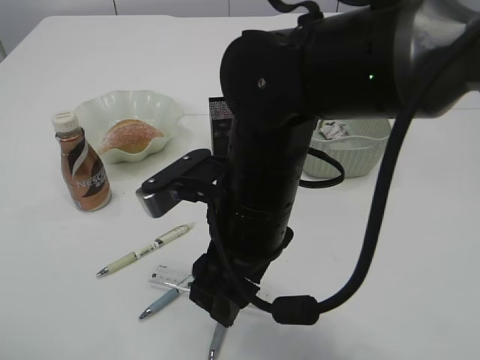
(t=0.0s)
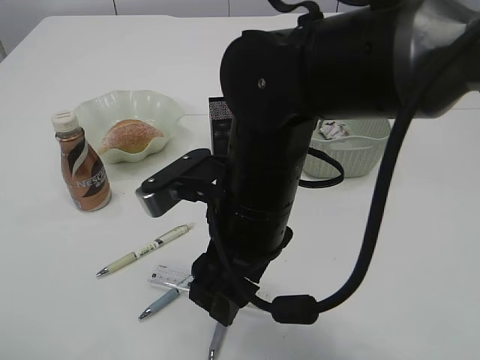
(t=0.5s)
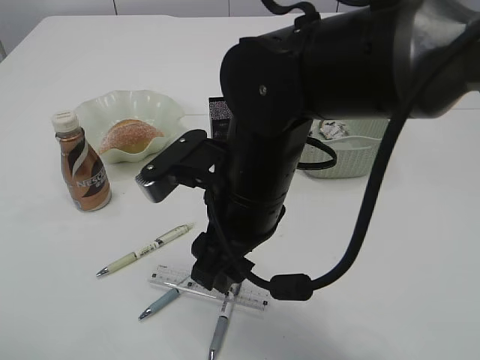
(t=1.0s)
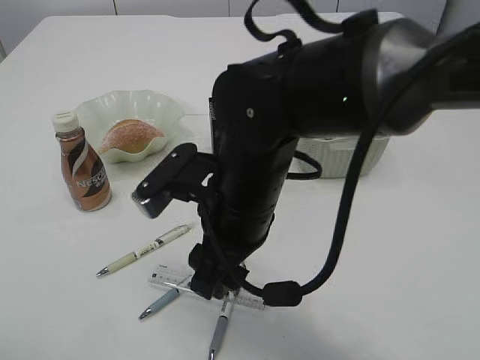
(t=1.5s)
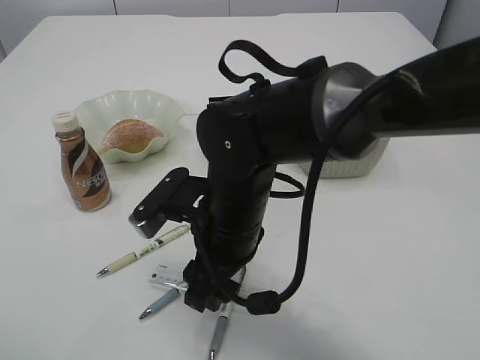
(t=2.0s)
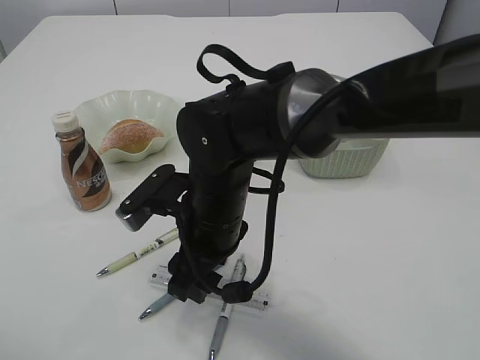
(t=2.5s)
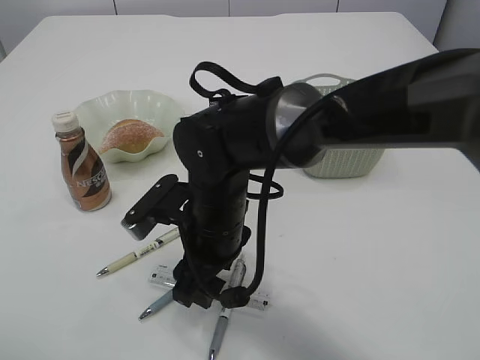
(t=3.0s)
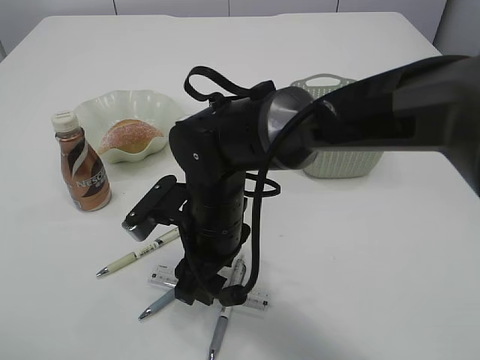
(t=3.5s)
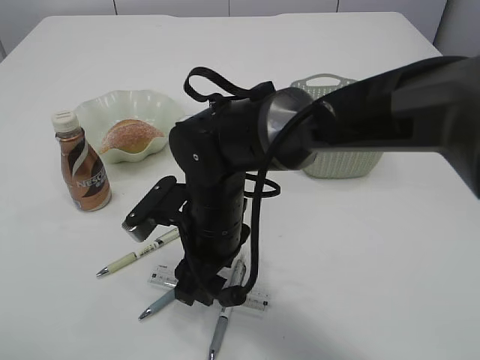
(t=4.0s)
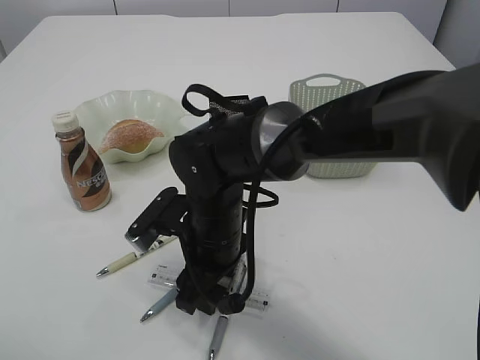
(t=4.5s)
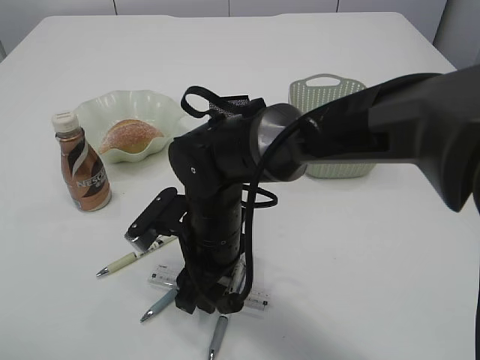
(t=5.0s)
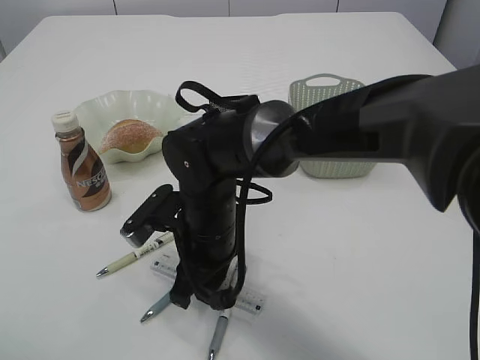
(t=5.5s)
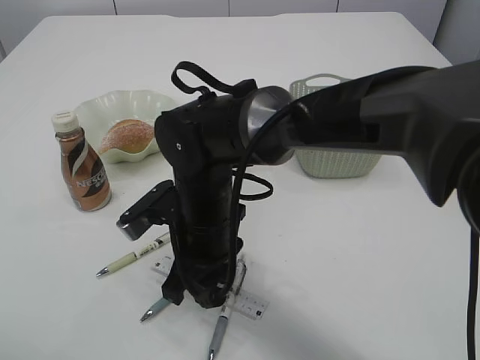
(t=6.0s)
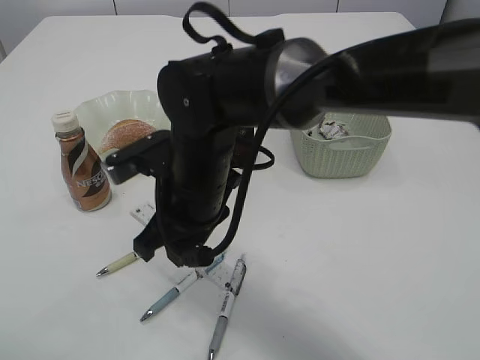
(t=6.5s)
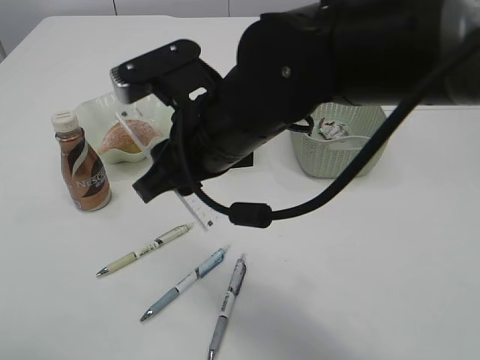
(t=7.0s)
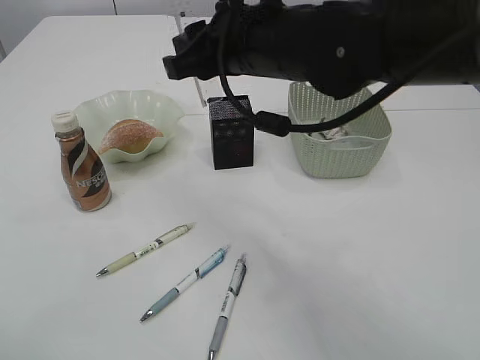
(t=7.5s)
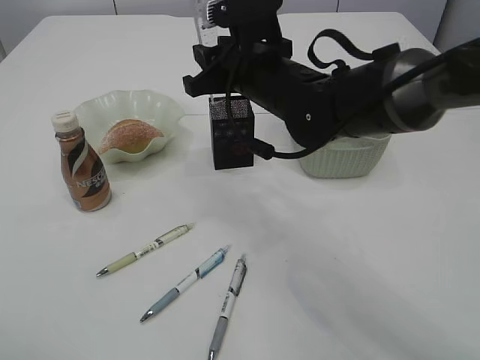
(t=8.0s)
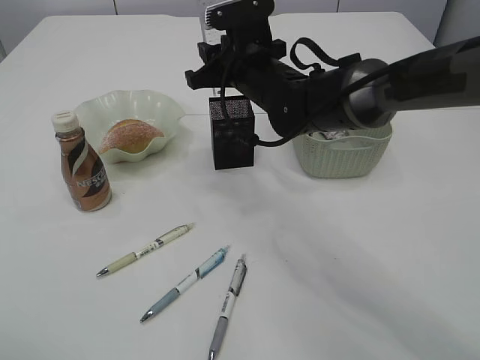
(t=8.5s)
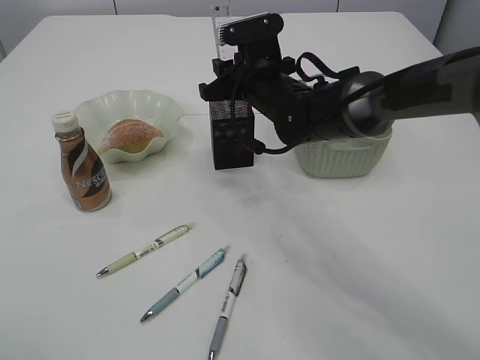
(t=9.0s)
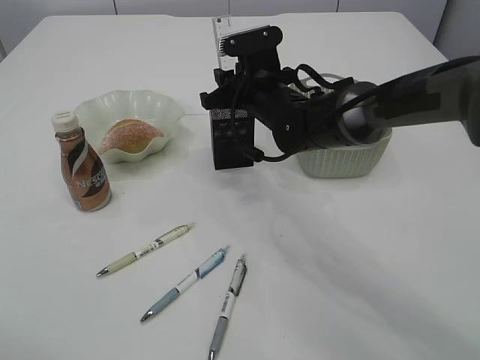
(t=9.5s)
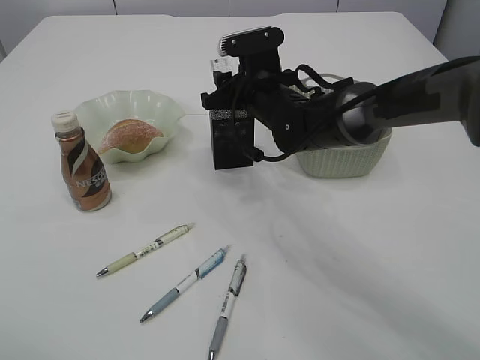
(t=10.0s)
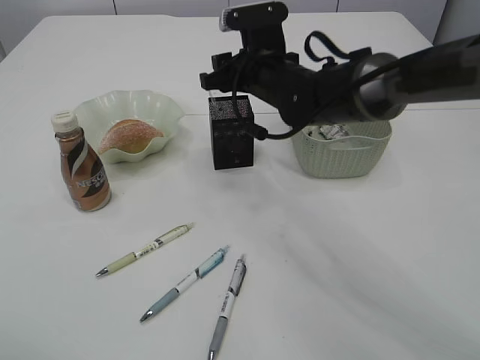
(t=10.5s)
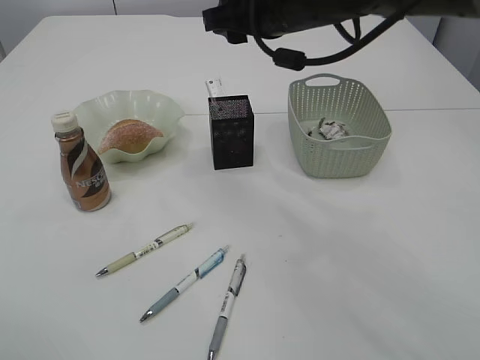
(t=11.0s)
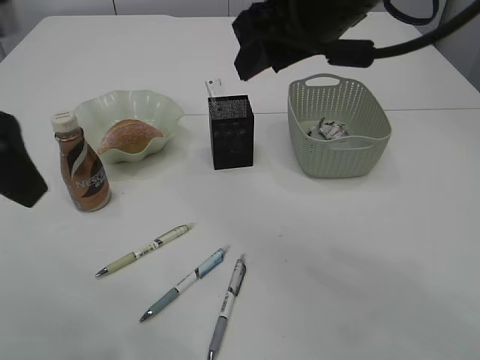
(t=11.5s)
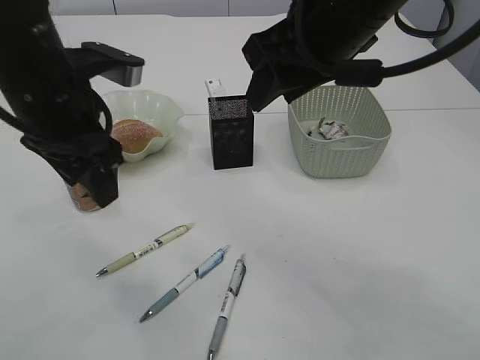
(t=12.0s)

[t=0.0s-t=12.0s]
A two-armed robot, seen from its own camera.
Step, t=0.0s to t=6.0s: pick up the ruler.
Step, t=6.5s to t=10.5s: Place the ruler into the pen holder.
t=0.0s to t=2.0s: The right gripper travels downward by some 5 cm.
t=2.0s to t=6.0s: There are only small adjustments of the grippers.
t=6.0s to t=8.0s: The right gripper is displaced upward, forward and to the right by approximately 15 cm.
t=8.0s to t=10.0s: The right gripper shifts about 10 cm forward and downward.
t=10.0s to t=12.0s: The left gripper shifts about 20 cm forward and to the right. The right gripper goes about 25 cm upward and backward.

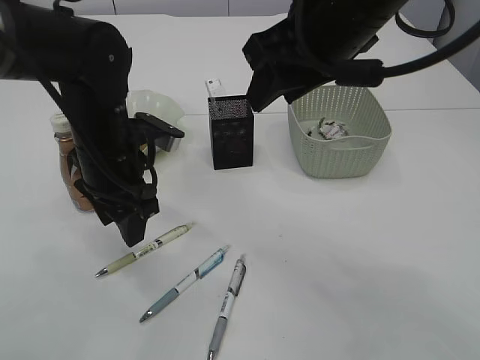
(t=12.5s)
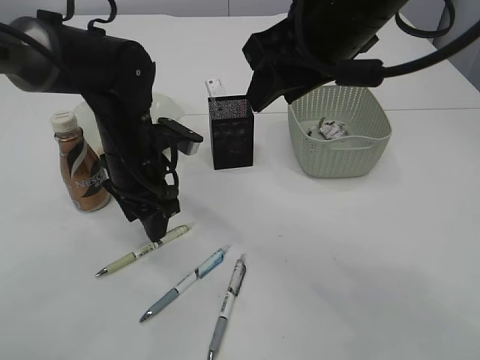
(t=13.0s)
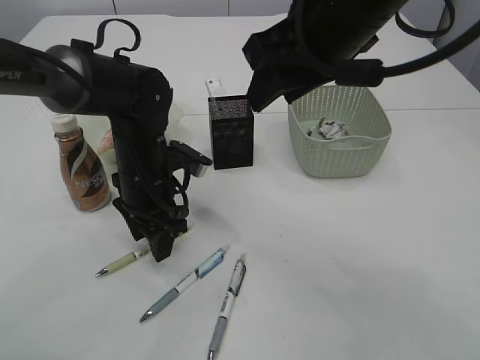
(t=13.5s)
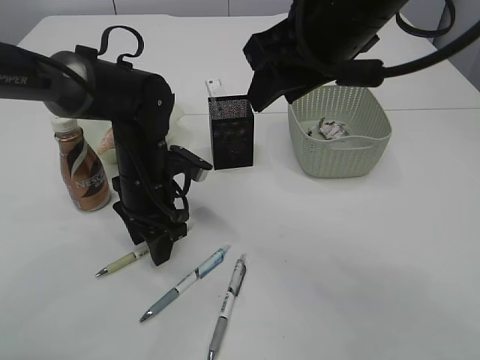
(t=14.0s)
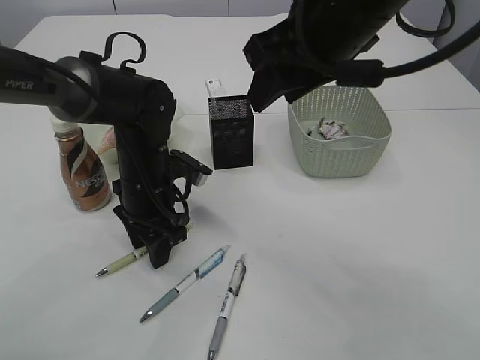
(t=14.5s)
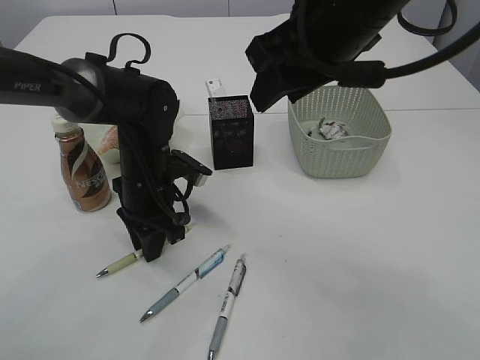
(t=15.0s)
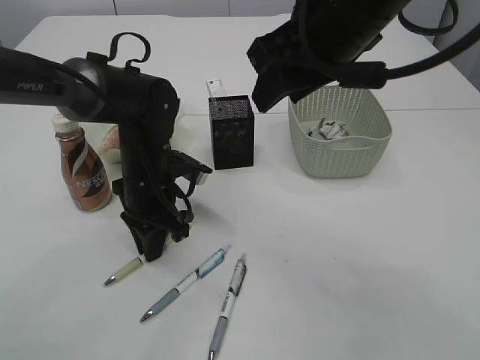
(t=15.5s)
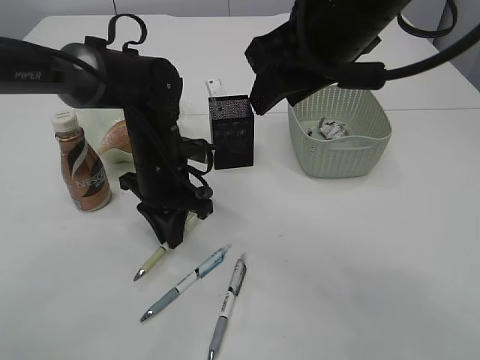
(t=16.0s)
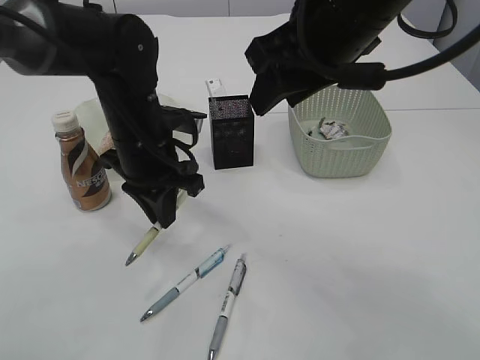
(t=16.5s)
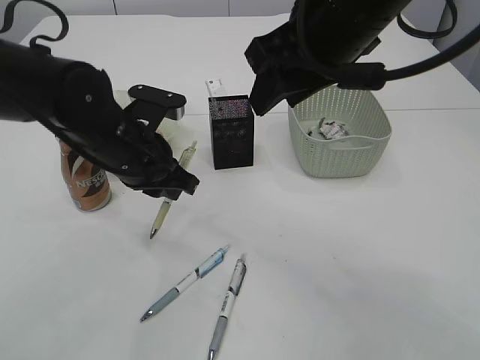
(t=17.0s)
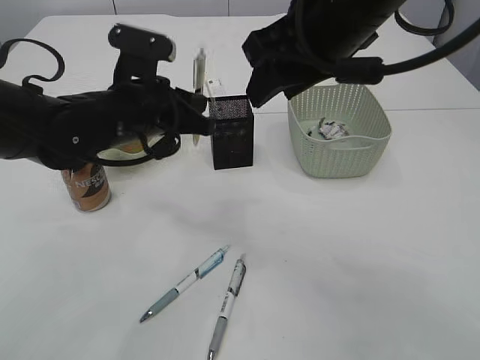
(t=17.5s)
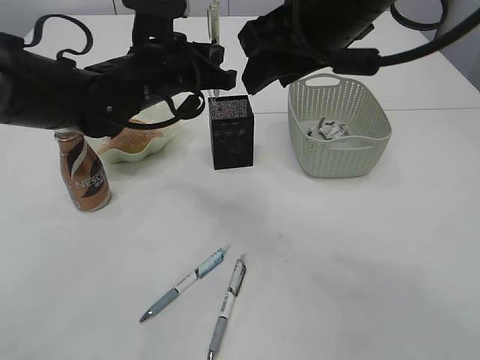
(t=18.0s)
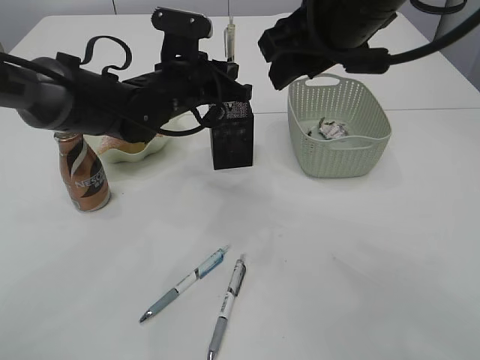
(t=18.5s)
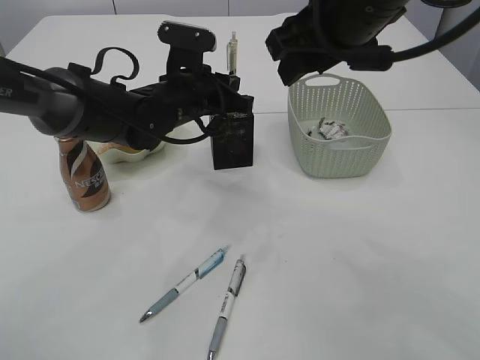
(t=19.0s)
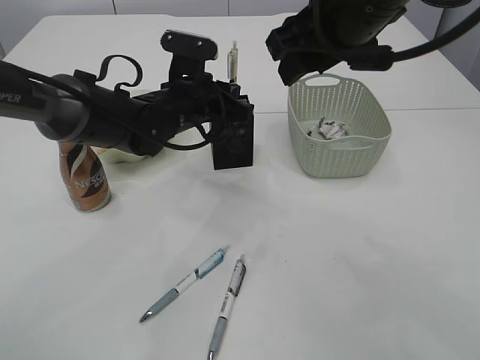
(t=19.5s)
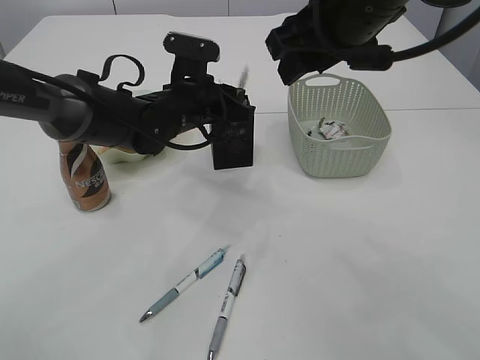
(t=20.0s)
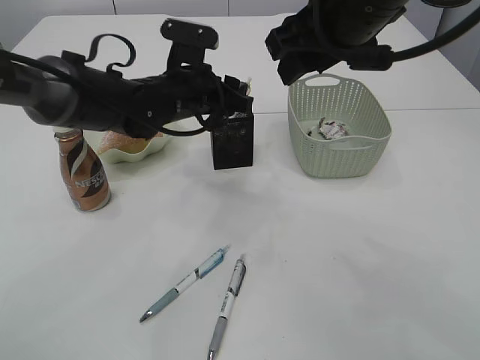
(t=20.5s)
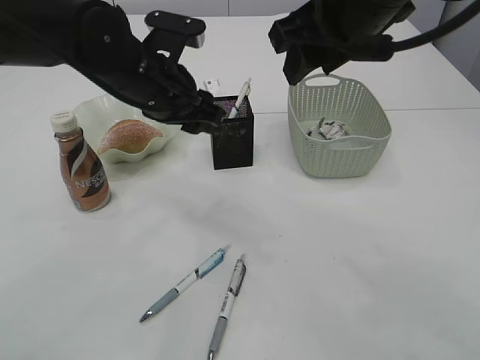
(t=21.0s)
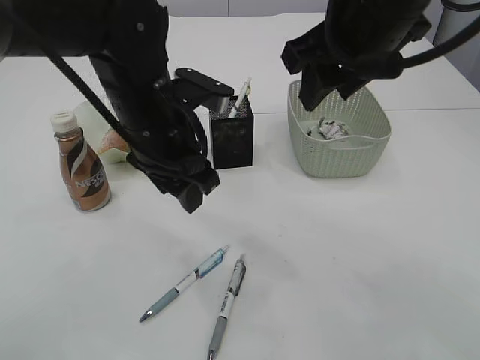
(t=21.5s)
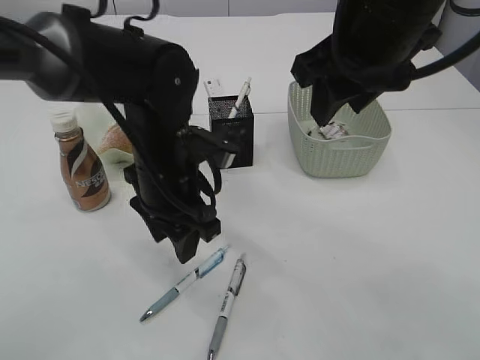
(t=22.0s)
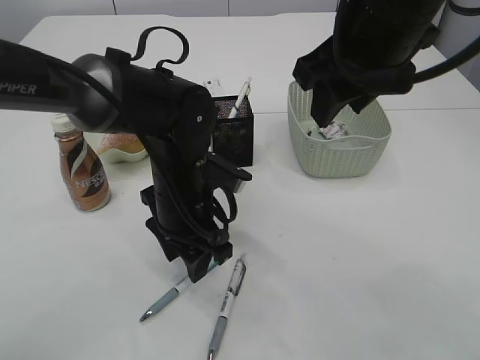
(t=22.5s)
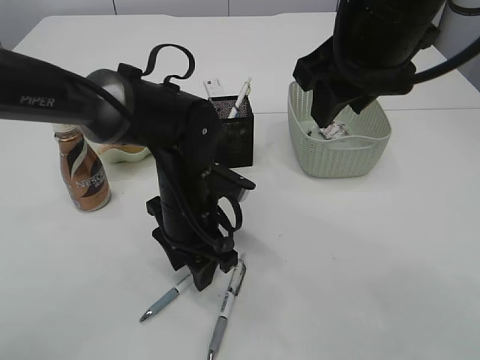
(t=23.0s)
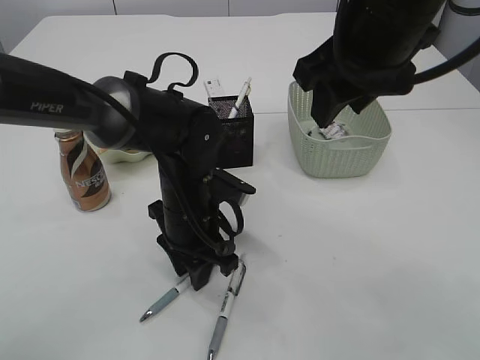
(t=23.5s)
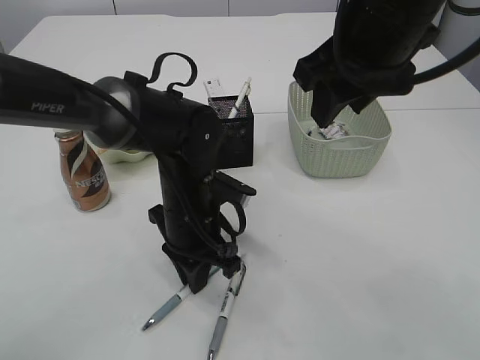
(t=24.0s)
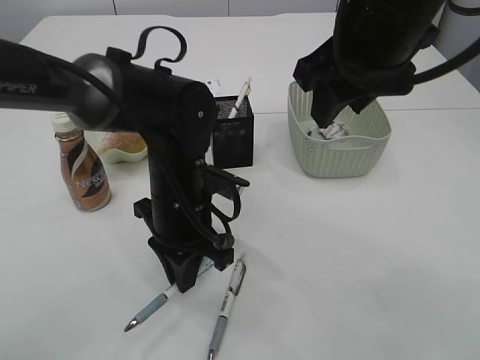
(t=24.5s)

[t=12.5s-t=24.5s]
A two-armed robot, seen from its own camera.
Step, t=12.5s to t=16.5s: Pick up the pen with left arm.
Step, t=17.0s to t=21.0s: Place the pen into the pen holder.
t=12.5s to t=14.5s: The left gripper moves downward, some 5 cm.
t=14.5s to t=16.5s: The left gripper travels upward by roughly 5 cm, and closes its fingers.
t=16.5s to t=18.5s: The left gripper goes approximately 5 cm forward.
t=18.5s to t=20.5s: The left gripper opens.
t=20.5s to t=22.5s: The left gripper goes approximately 10 cm backward.
t=22.5s to t=24.5s: The left gripper closes its fingers.

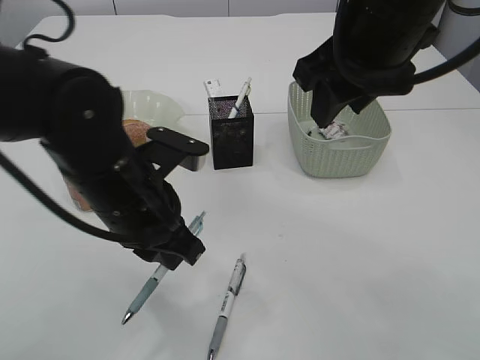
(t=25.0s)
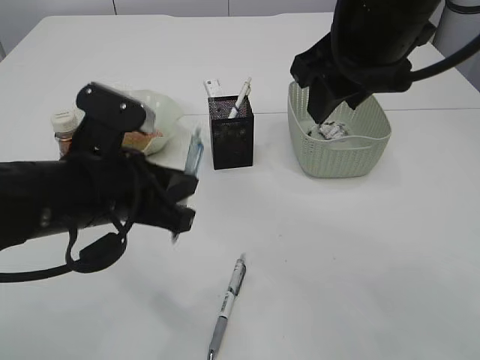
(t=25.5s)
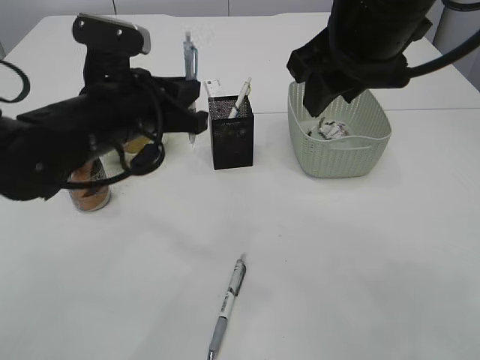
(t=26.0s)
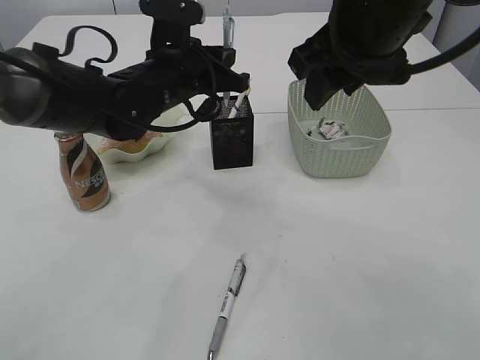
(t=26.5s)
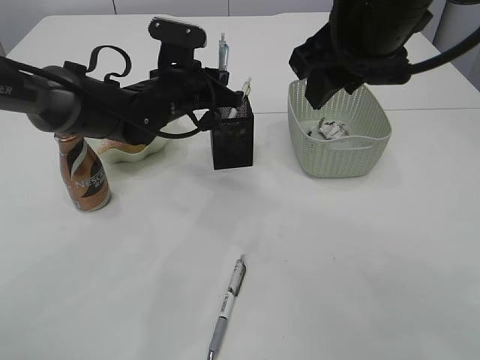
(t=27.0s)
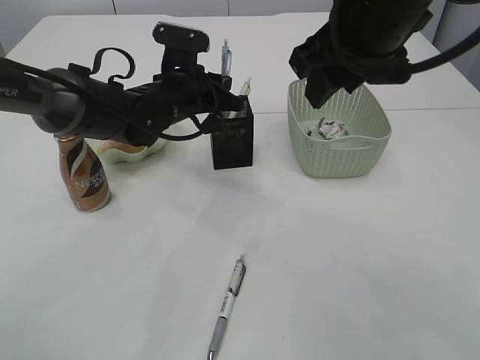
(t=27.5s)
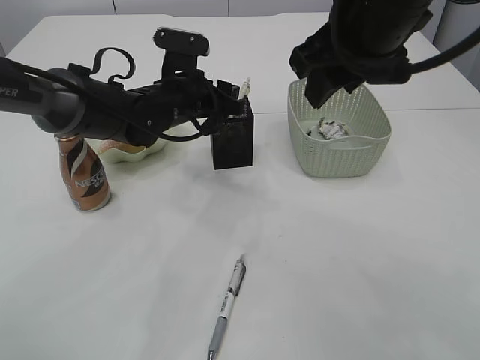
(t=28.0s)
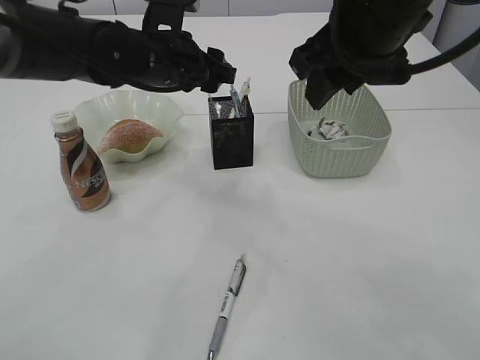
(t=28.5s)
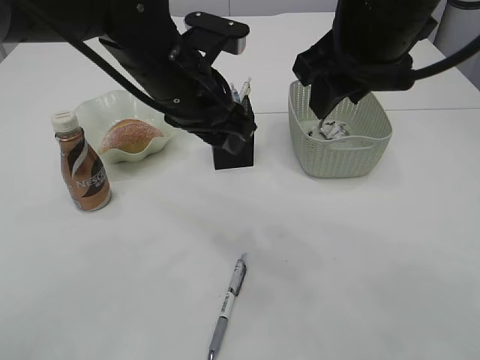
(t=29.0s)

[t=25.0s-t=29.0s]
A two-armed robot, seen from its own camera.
Step, t=25.5s to t=28.5s: Place the pen into the pen holder.
t=25.0s to t=27.0s: The left gripper travels forward by roughly 20 cm.
t=27.0s to t=29.0s: The left gripper moves backward and upward, about 10 cm, and opens its fingers.
